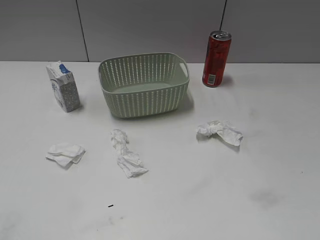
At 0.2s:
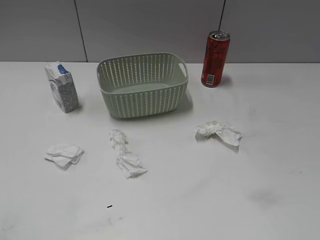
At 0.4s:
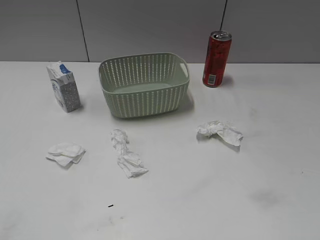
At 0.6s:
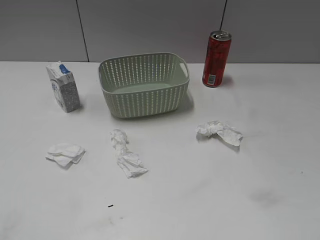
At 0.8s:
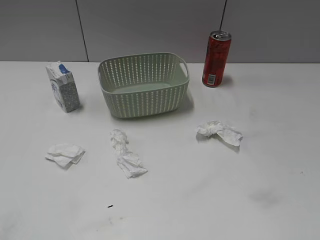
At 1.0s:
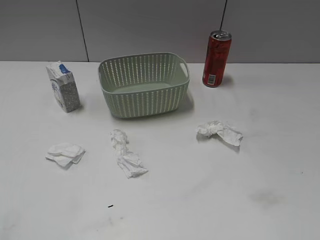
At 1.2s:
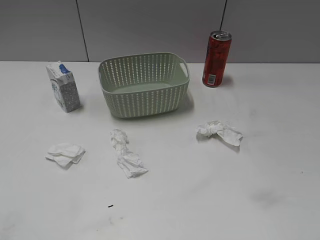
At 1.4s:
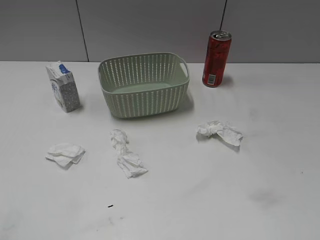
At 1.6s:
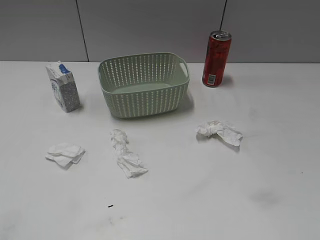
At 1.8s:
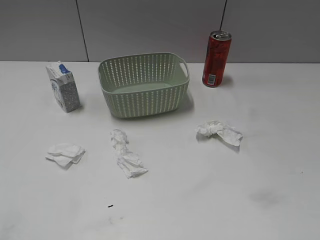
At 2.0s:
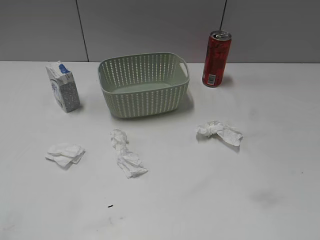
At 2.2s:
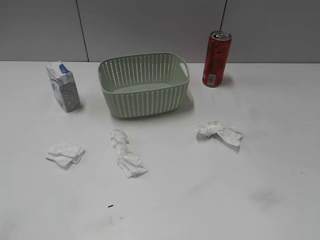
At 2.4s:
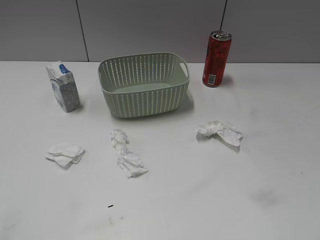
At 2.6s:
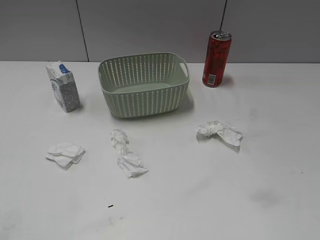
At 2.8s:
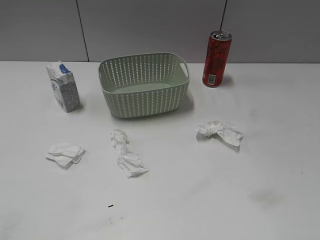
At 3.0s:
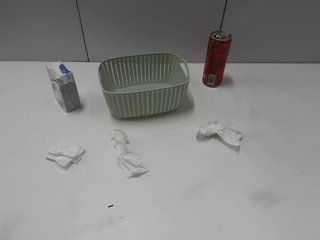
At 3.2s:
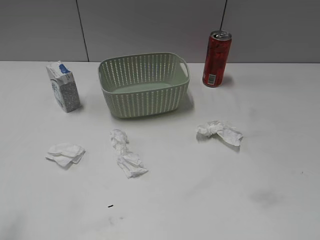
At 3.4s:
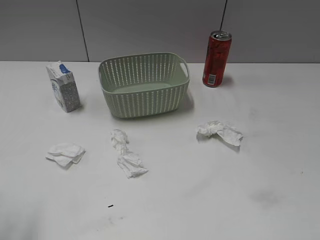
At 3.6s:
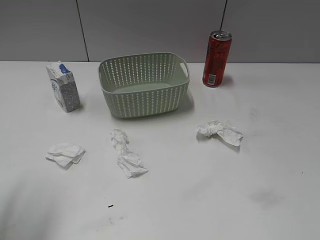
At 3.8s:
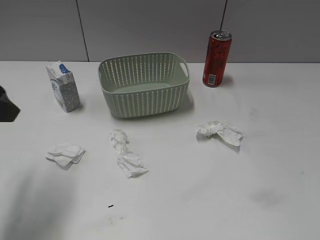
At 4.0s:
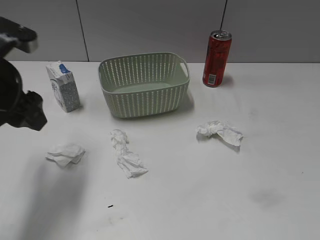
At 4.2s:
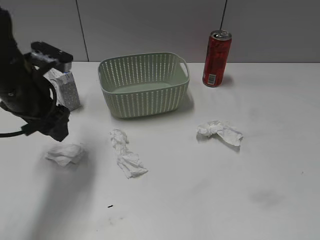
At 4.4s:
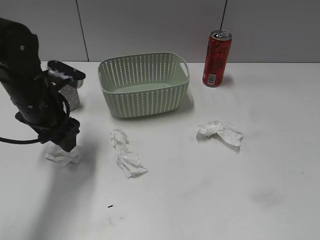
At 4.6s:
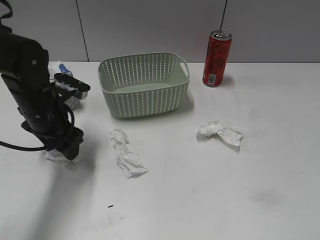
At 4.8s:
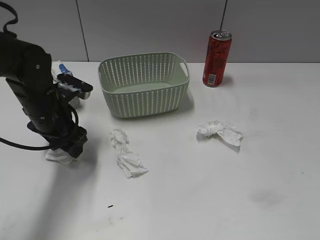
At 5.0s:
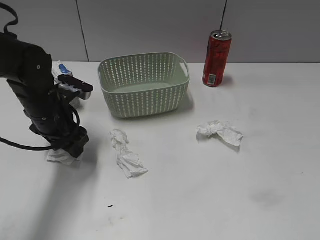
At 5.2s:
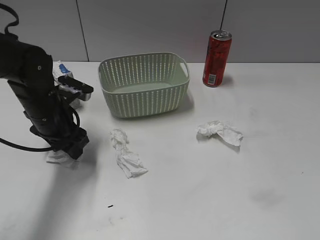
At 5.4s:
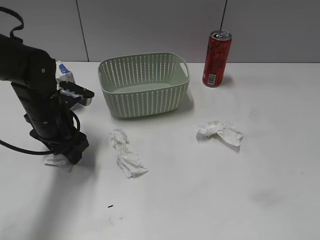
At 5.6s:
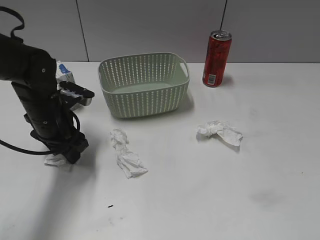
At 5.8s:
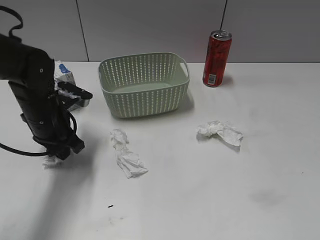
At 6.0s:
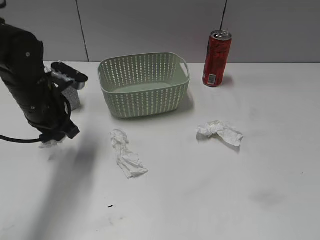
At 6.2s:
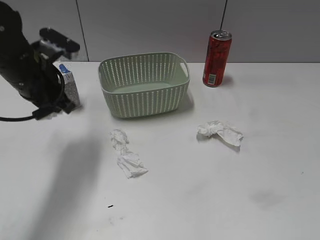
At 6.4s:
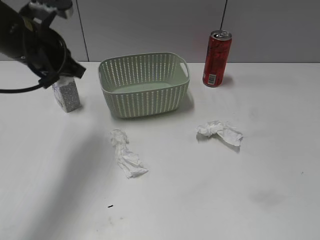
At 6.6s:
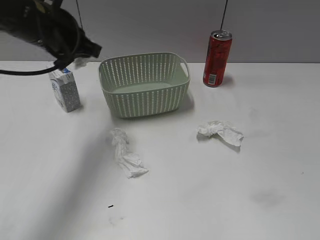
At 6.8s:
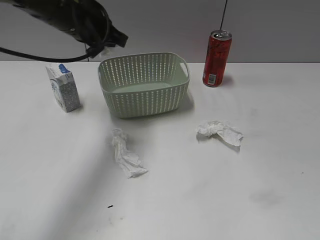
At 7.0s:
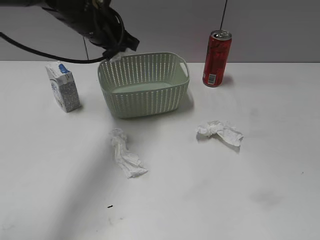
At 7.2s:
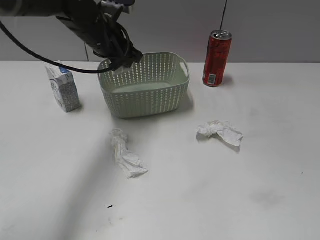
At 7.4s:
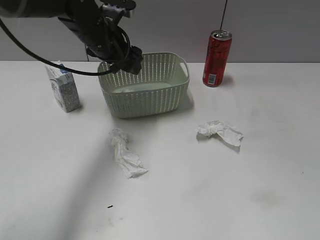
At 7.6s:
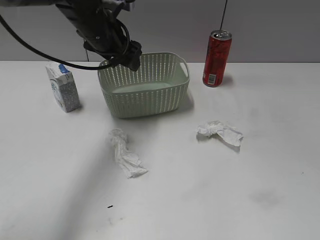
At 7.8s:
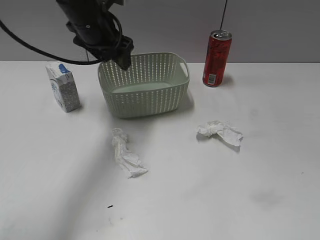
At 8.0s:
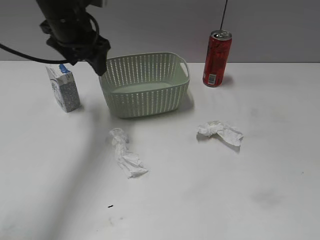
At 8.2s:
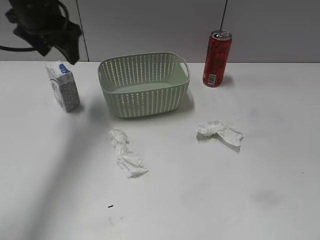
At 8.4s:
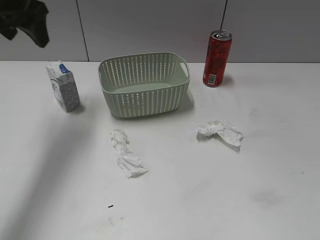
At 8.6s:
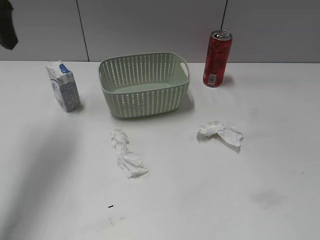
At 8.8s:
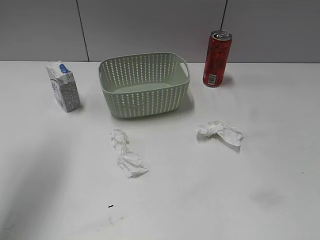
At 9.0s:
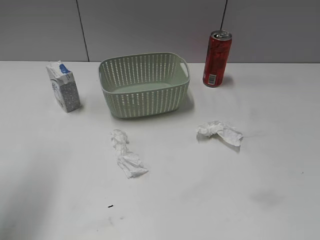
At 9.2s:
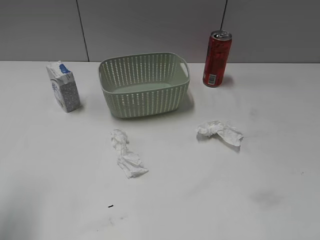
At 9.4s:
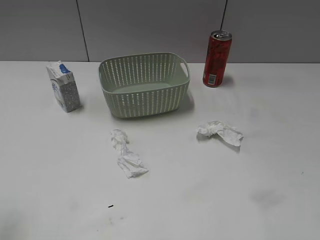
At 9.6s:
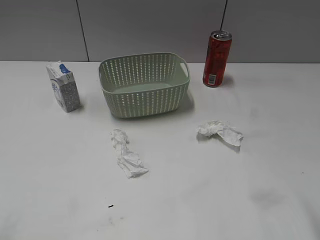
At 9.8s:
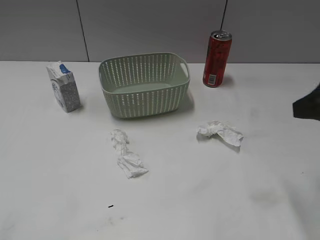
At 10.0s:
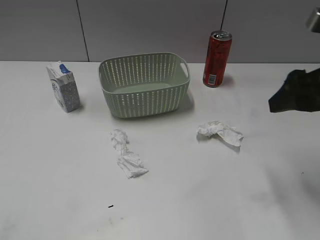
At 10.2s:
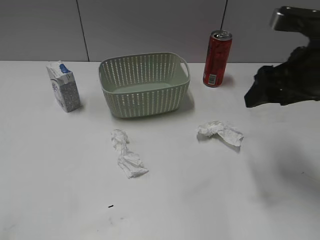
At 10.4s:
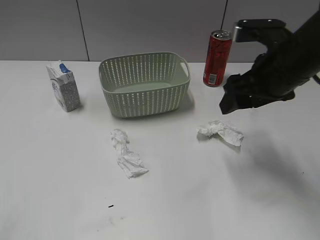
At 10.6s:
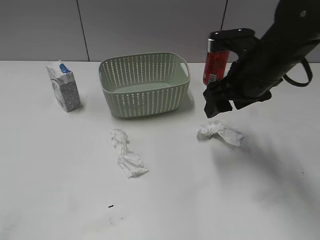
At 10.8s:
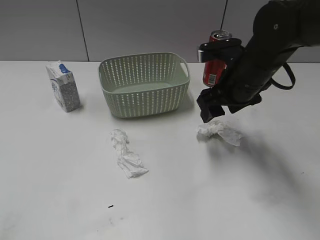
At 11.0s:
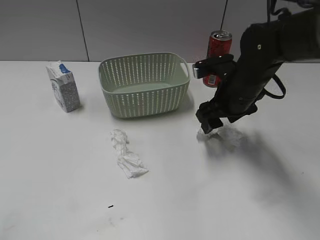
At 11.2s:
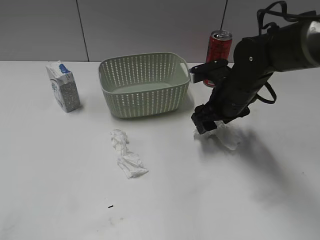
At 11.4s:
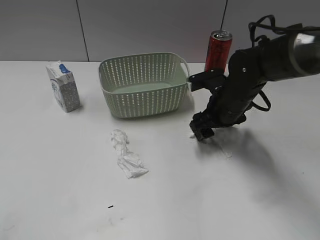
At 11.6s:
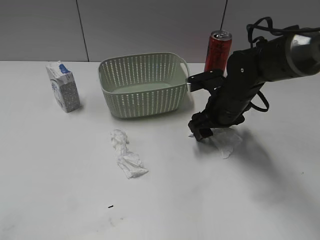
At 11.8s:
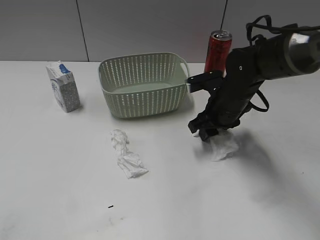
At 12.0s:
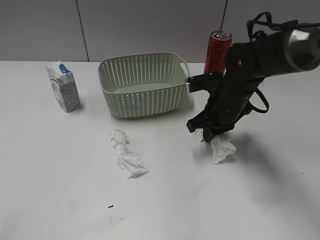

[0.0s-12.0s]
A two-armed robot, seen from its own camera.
Step, 3.4s to 5.8s: Grasp the waste paper with left gripper.
Step, 6.0s to 7.4s: Place the waste paper in the basket with left gripper.
Step, 7.6s to 12.0s: Grasp the waste paper with right gripper.
3.0s to 4.4s: The left gripper heads forward, to the right and downward, covering approximately 35 cm.
4.4s to 6.0s: The left gripper closes.
6.0s to 7.6s: The left gripper moves forward, to the right and upward, some 15 cm, and opens its fingers.
7.6s to 9.0s: The left gripper heads backward, to the left and upward, covering roughly 30 cm.
9.0s to 10.4s: The right gripper shifts approximately 30 cm forward and to the left. The left gripper shifts about 25 cm backward.
10.4s to 12.0s: The right gripper goes approximately 15 cm downward and forward, and closes its fingers.

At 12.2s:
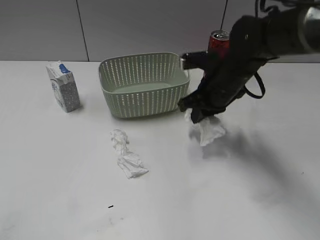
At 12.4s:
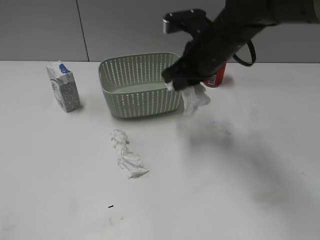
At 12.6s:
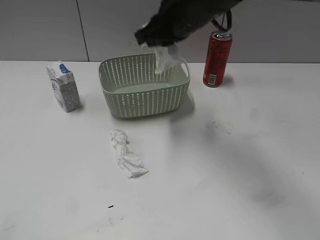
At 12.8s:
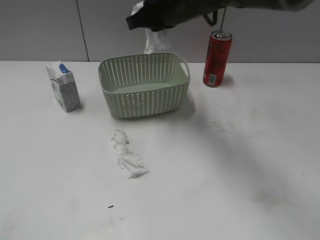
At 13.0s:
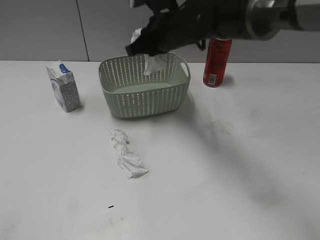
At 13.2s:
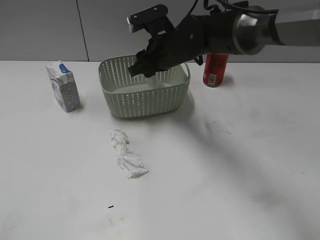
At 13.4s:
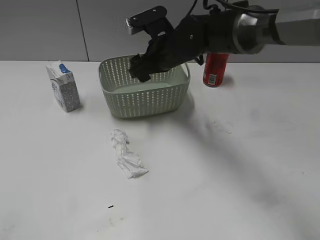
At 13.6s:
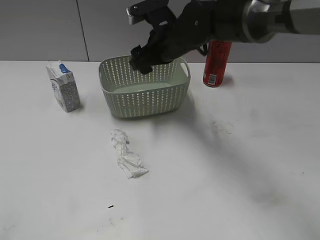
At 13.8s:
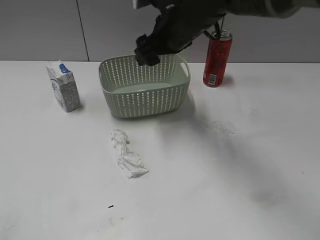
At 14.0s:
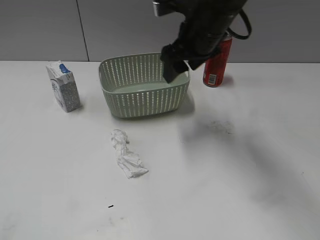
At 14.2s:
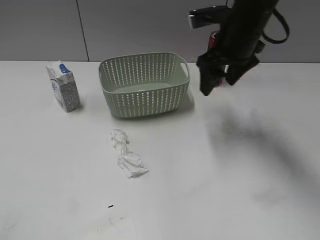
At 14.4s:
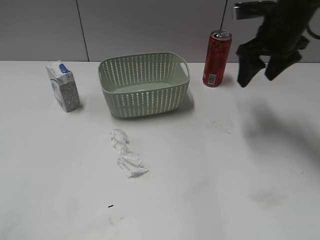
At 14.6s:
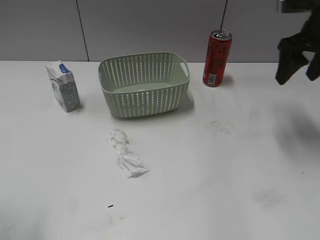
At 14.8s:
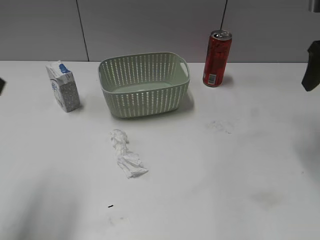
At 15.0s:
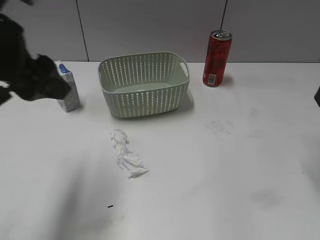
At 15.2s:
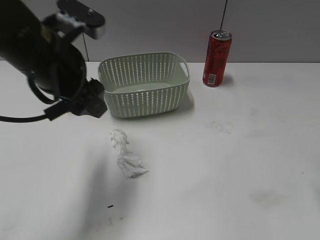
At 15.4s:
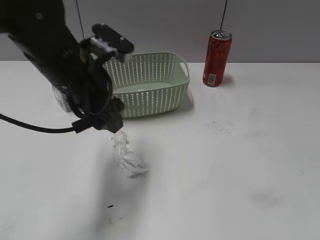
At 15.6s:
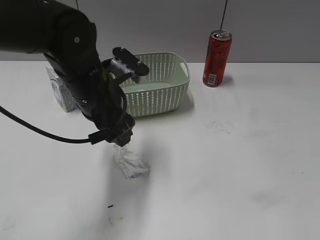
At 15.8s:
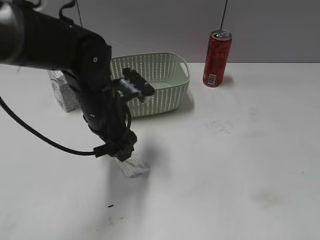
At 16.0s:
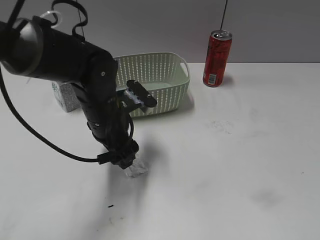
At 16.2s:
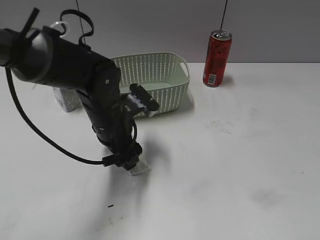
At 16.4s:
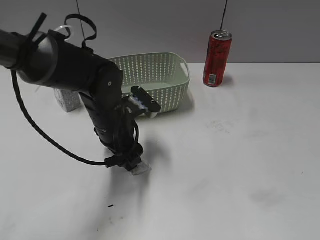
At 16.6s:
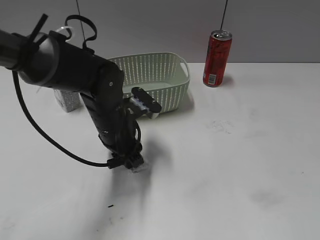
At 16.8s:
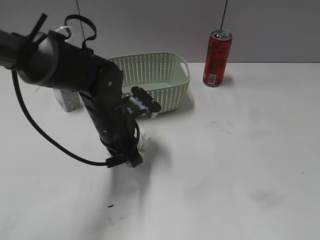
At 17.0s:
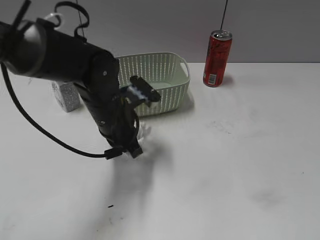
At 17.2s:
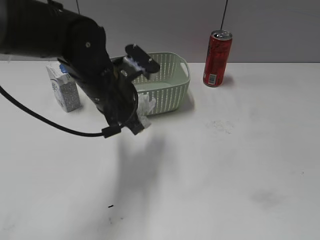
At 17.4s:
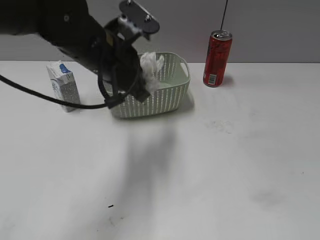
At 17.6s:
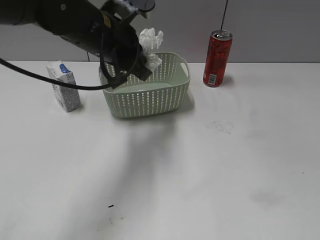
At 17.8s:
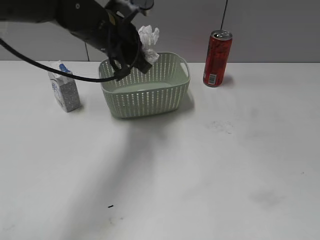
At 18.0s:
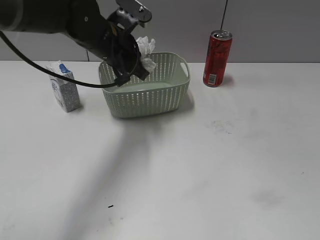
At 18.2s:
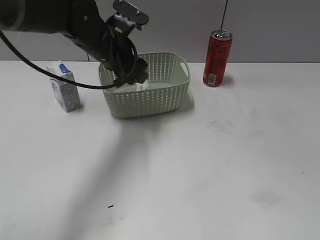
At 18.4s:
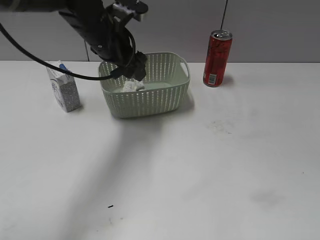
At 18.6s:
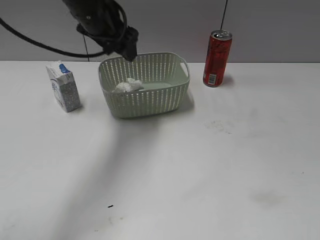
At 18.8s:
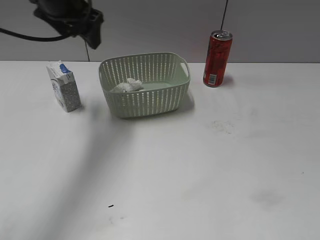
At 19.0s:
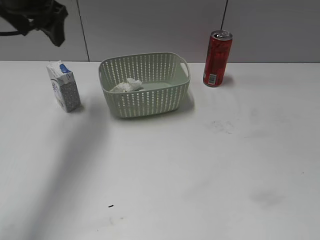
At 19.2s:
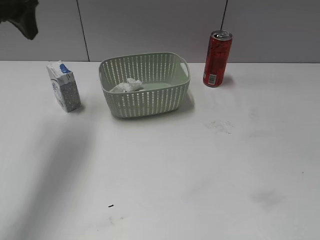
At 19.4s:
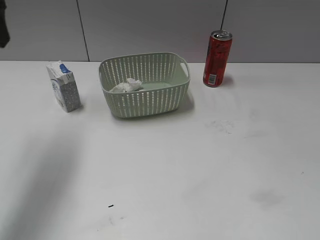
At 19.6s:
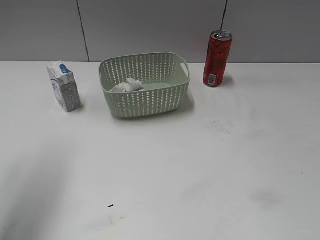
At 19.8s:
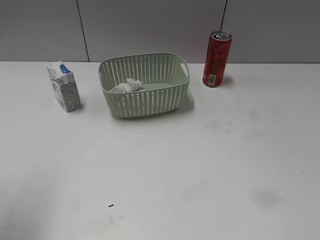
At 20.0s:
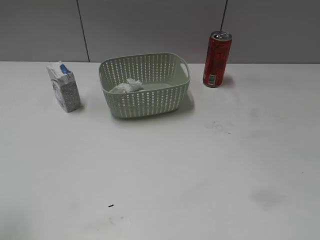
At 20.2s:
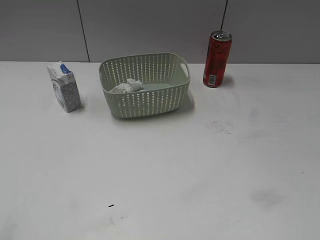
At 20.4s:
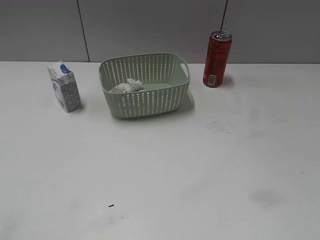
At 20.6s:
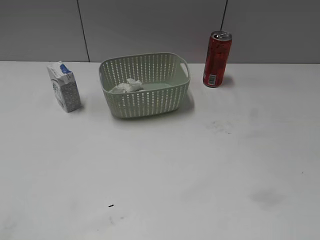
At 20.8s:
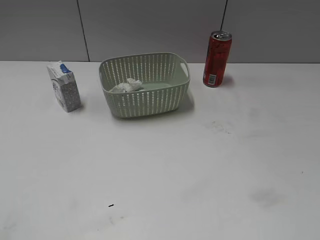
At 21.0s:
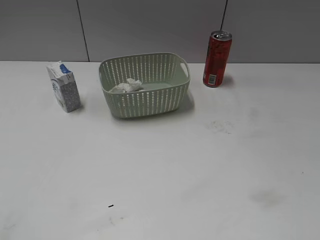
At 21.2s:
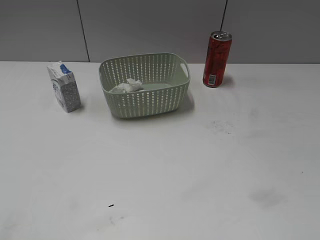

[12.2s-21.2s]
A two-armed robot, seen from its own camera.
Step, 12.2s to 13.6s: Place the waste paper in the basket with right gripper.
Step, 13.8s to 16.6s: Grasp the waste paper with left gripper.
Step, 16.8s to 18.4s: Place the waste paper in the basket with left gripper.
12.2s to 13.8s: The right gripper swings up and down, approximately 10 cm each way, with 2 reversals, and opens up.
13.8s to 15.2s: The left gripper goes some 30 cm forward and to the right, while the right gripper shifts some 30 cm to the right and backward.
15.2s to 16.6s: The left gripper shifts about 15 cm downward and to the right, while the right gripper is displaced backward by approximately 20 cm.
16.6s to 18.2s: The left gripper moves forward and upward, approximately 15 cm, and closes, then opens again.
18.2s to 19.8s: The left gripper heads backward, to the left and upward, covering roughly 30 cm.
19.8s to 21.2s: The left gripper travels backward and downward by approximately 20 cm.

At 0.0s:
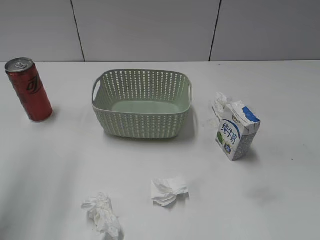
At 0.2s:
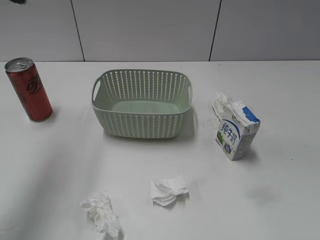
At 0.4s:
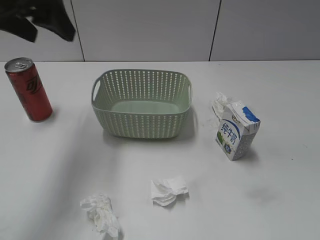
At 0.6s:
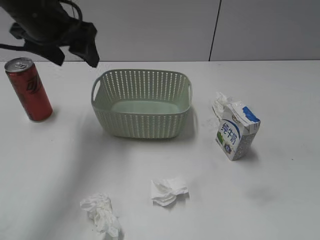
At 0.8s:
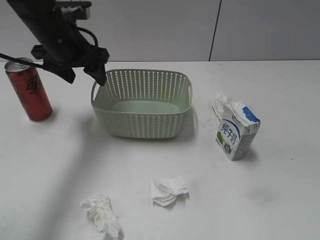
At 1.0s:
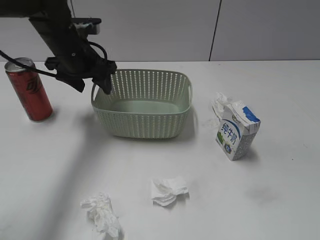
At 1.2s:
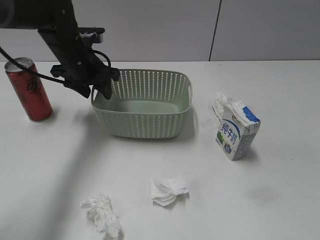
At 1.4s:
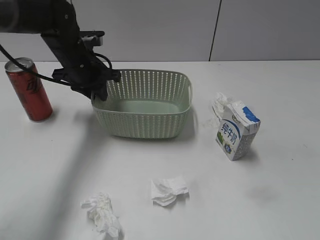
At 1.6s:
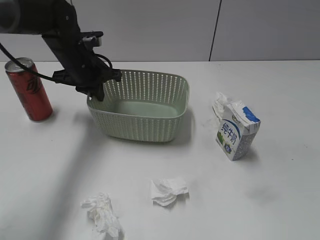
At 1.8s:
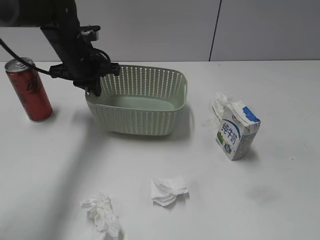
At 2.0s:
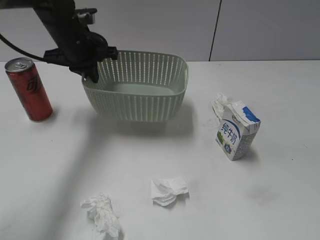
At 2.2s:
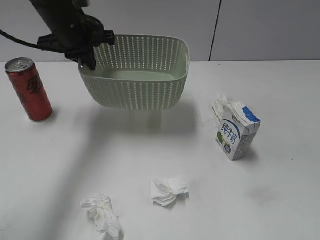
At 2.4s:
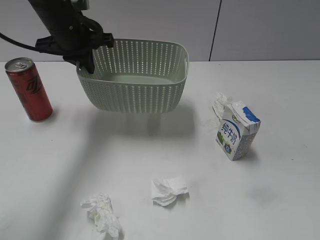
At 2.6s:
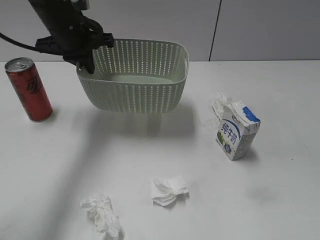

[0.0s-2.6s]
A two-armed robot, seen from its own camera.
Step, 0.2s to 1.6s: Grasp the basket with left gripper.
0.0s to 1.2s: The left gripper is displaced downward, forward and to the right by roughly 35 cm.
1.2s to 2.6s: The left gripper is displaced upward by approximately 5 cm, and closes its fingers.
